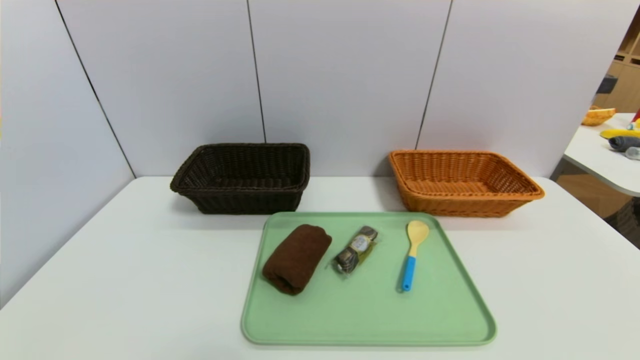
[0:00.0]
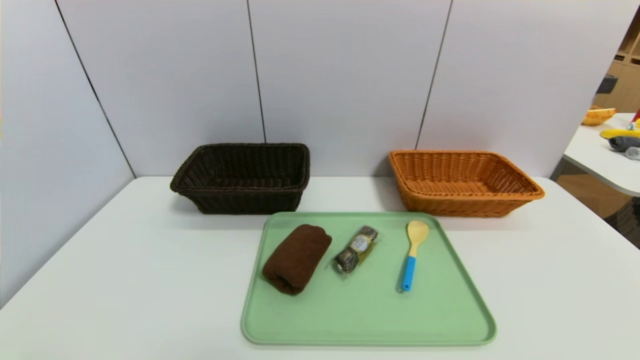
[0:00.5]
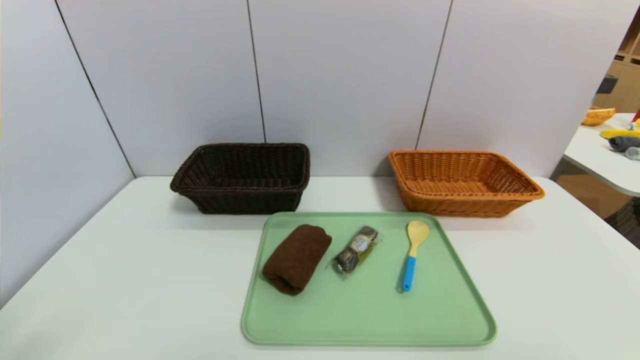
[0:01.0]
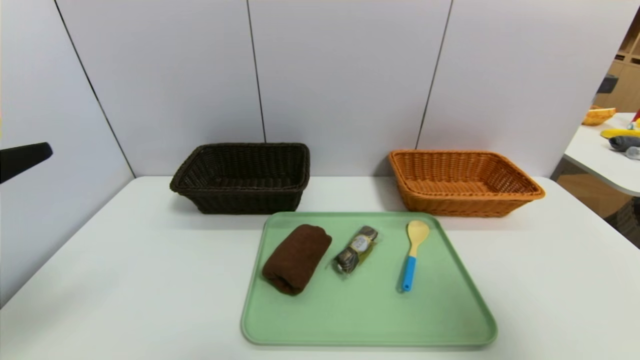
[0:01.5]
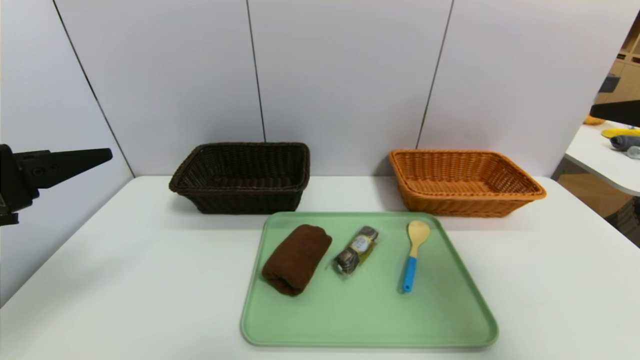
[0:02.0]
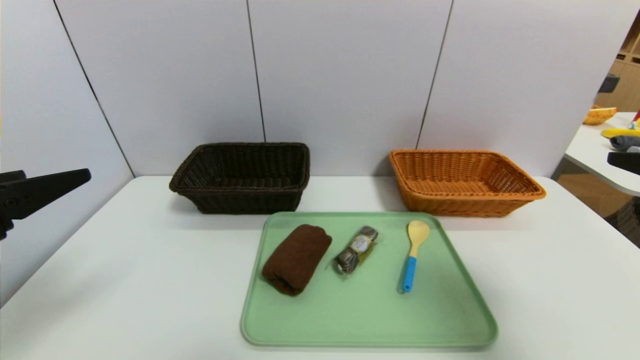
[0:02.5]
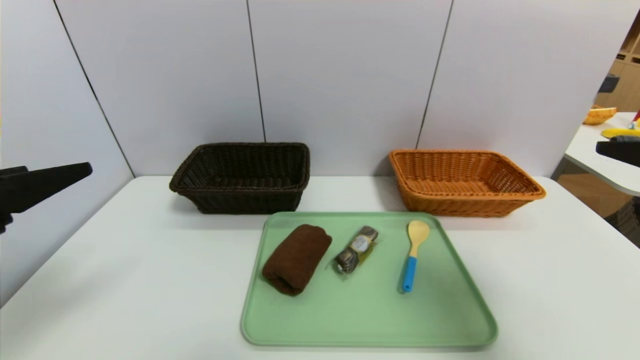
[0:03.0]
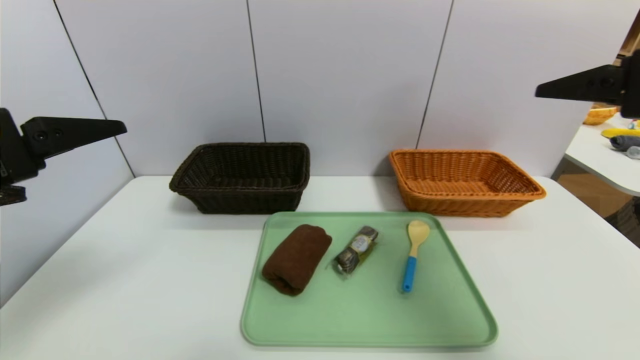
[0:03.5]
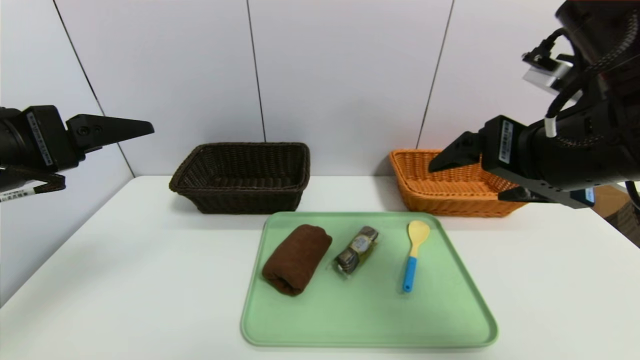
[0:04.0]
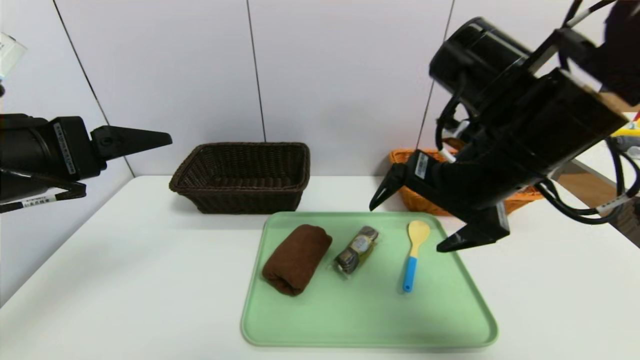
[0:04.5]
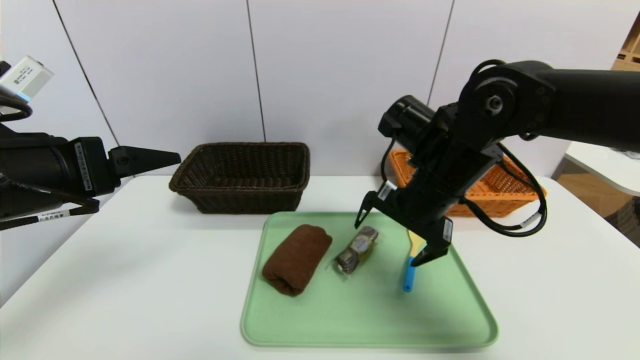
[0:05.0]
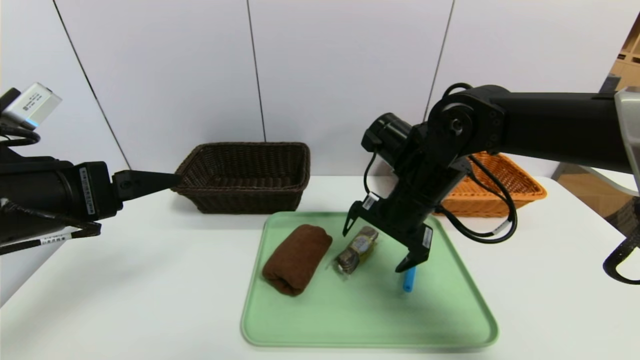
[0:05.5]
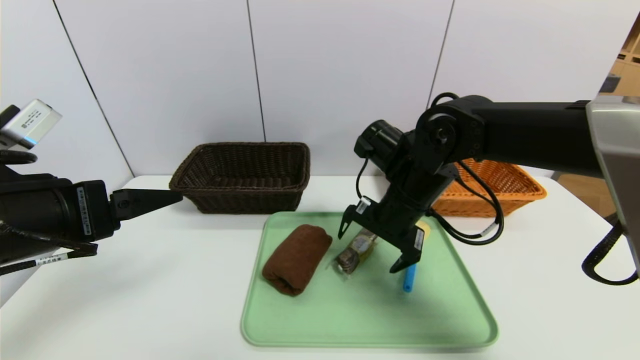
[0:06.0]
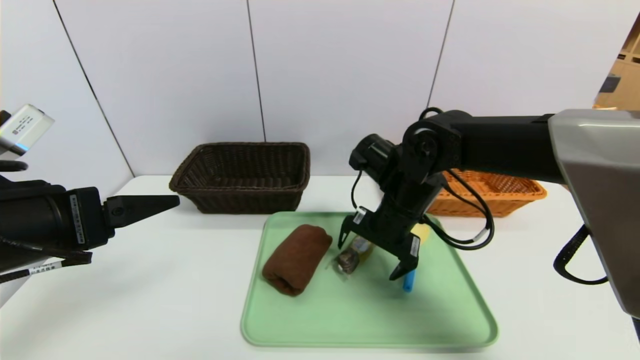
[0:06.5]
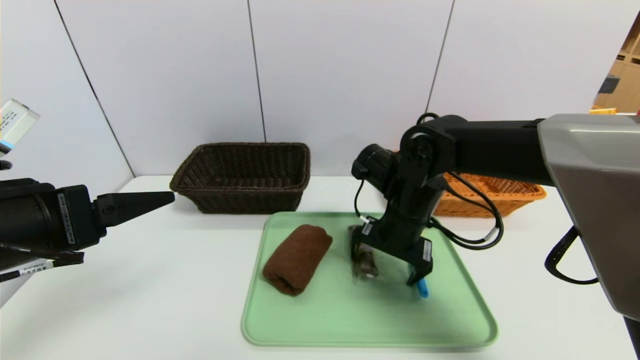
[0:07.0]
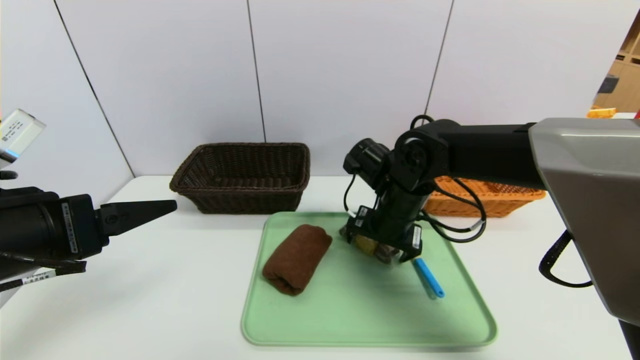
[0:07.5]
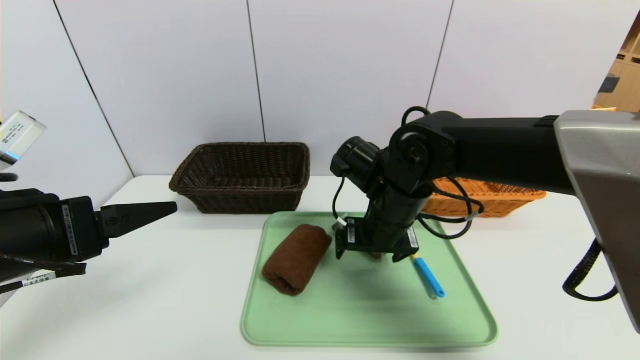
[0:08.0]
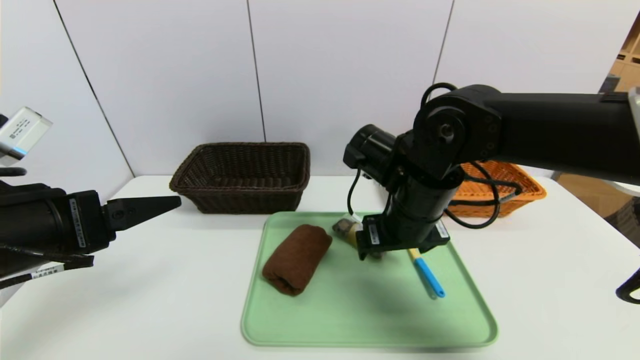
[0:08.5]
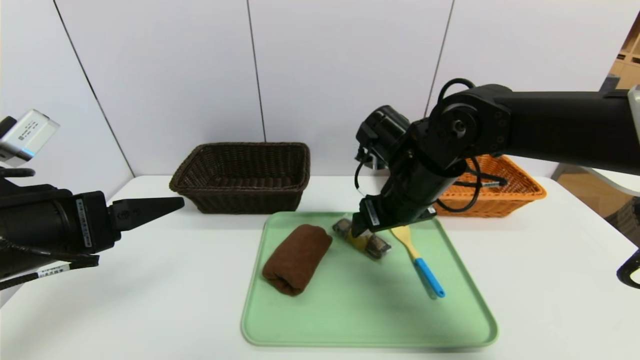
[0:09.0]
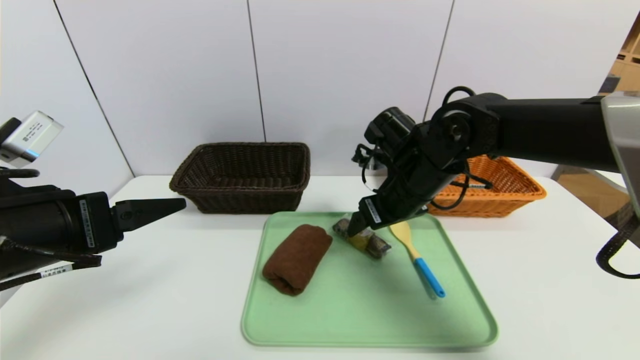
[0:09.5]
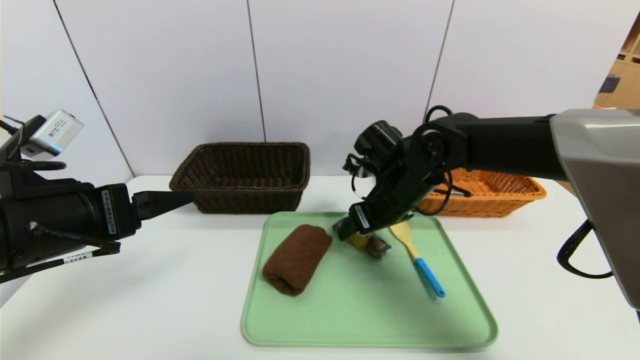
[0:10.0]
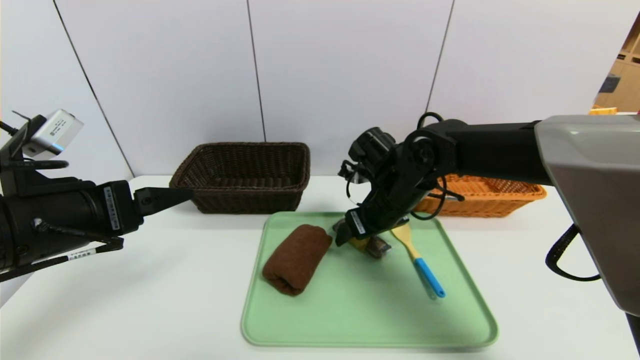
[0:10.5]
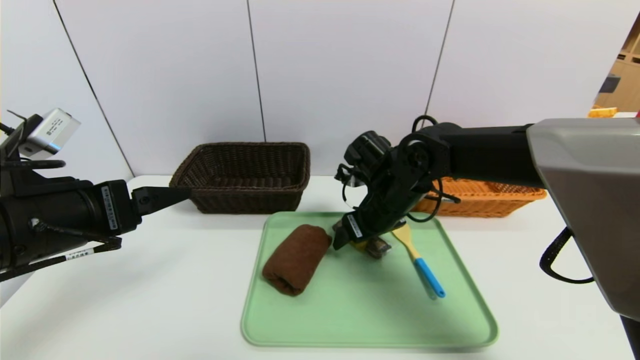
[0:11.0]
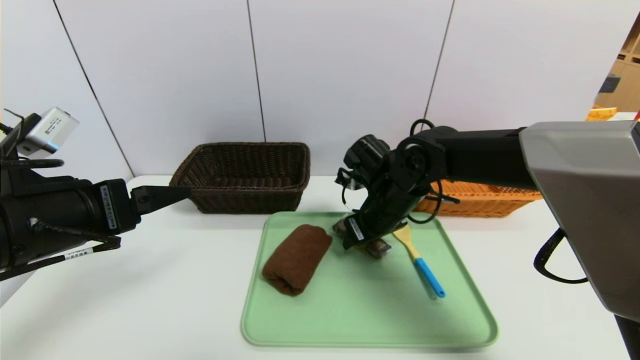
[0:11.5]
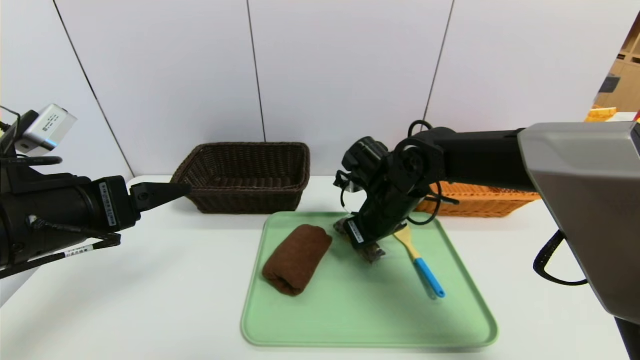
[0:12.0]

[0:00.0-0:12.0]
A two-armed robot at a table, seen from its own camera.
Task of the whole recording: place the food in the right basket with the right gripper, and place the non food items in the left basket with the left gripper.
0:00.0 to 0:02.0: The right gripper goes approximately 30 cm upward and forward. Meanwhile the left gripper shifts some 25 cm forward and upward.
0:02.0 to 0:04.0: The right gripper travels to the left and forward by about 15 cm.
0:04.0 to 0:06.0: The left gripper shifts by about 5 cm. The right gripper goes approximately 20 cm downward, forward and to the left.
0:08.0 to 0:10.0: The right gripper heads forward, covering roughly 5 cm.
0:10.0 to 0:12.0: The right gripper closes its fingers.

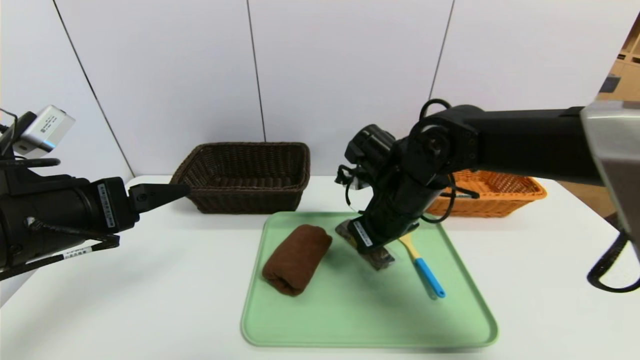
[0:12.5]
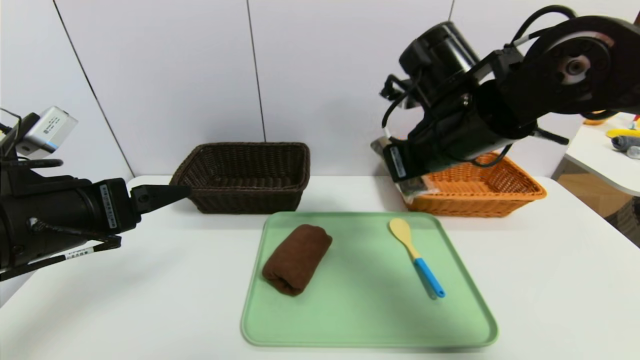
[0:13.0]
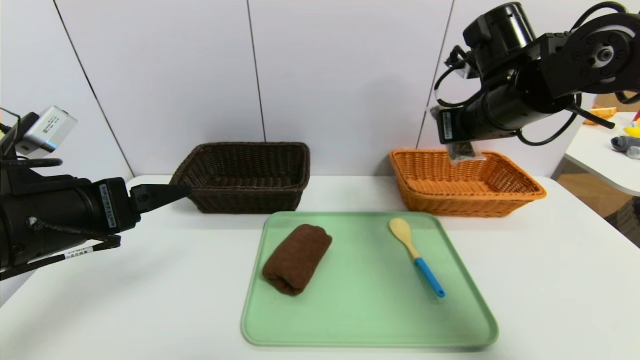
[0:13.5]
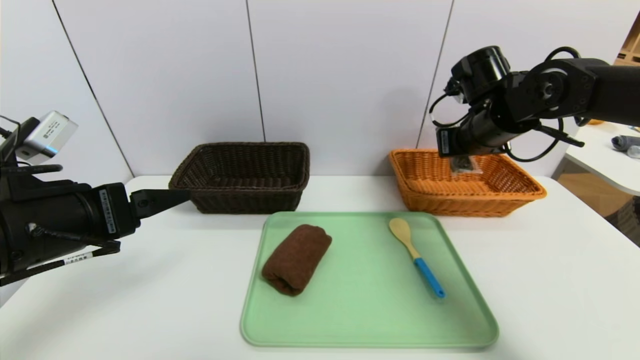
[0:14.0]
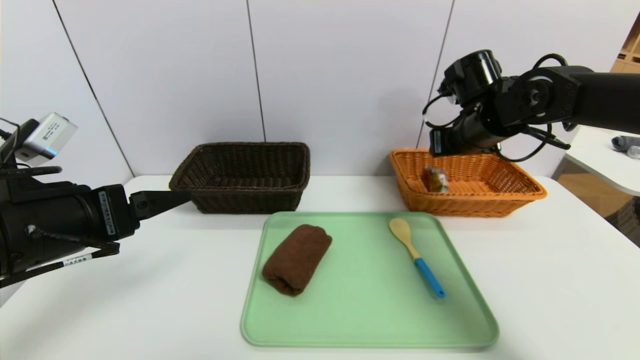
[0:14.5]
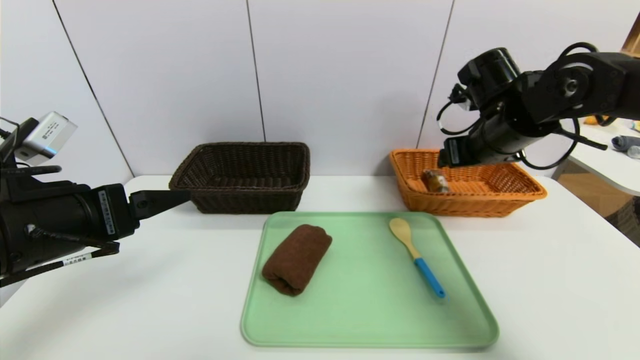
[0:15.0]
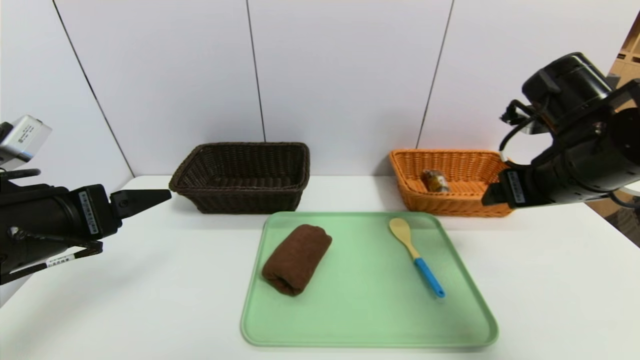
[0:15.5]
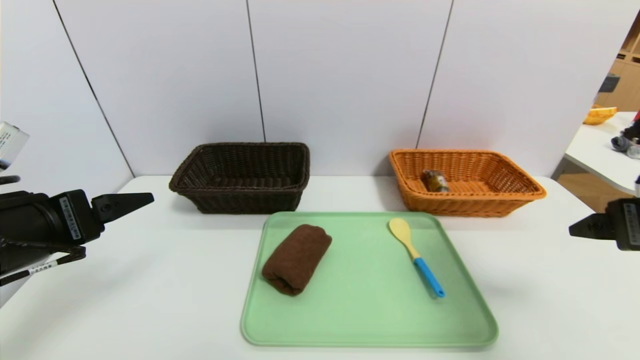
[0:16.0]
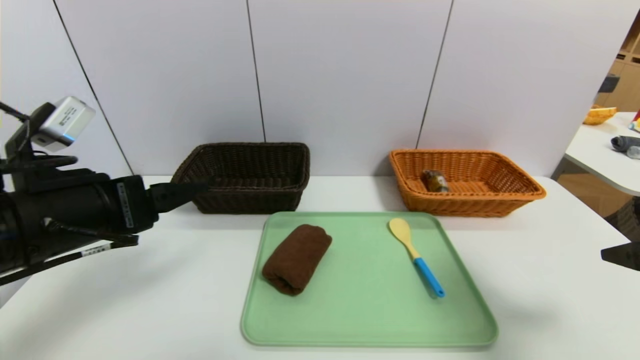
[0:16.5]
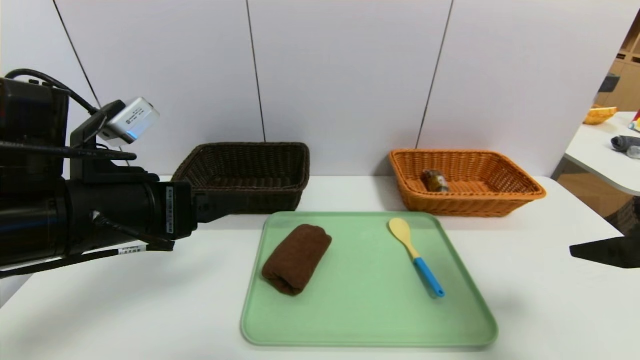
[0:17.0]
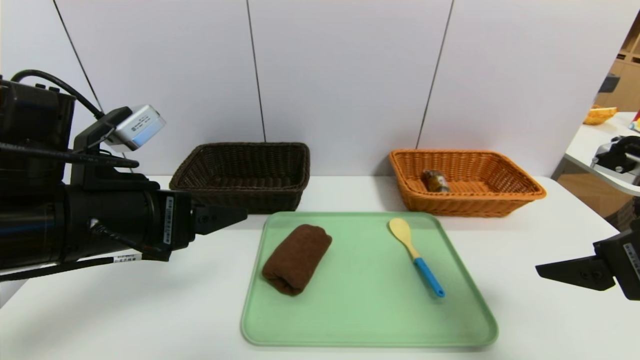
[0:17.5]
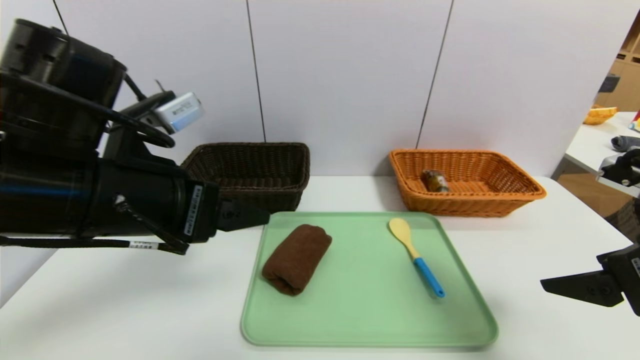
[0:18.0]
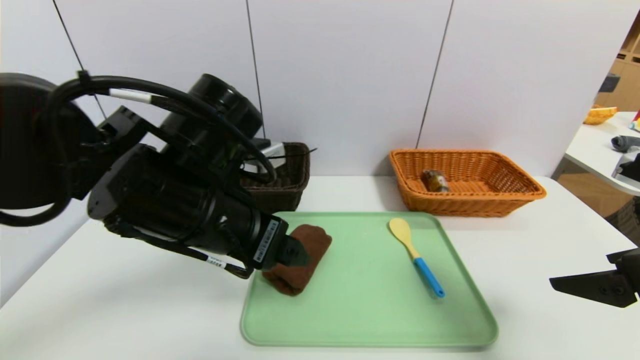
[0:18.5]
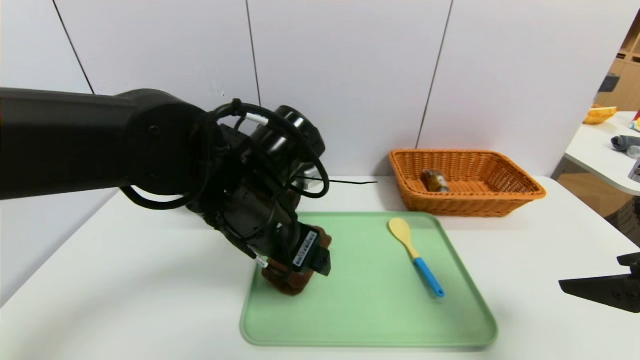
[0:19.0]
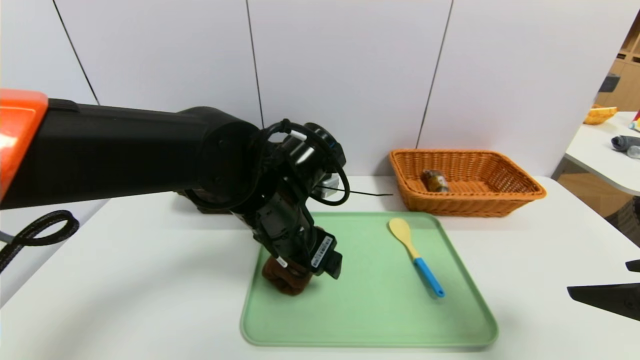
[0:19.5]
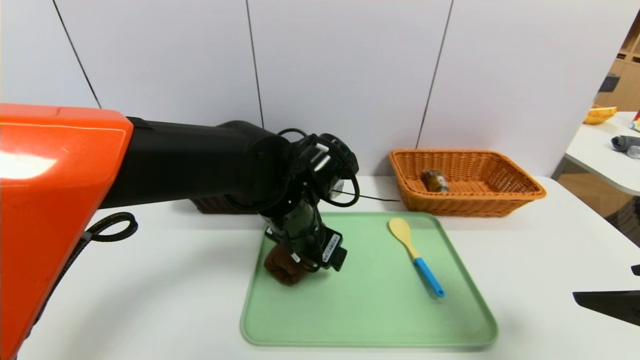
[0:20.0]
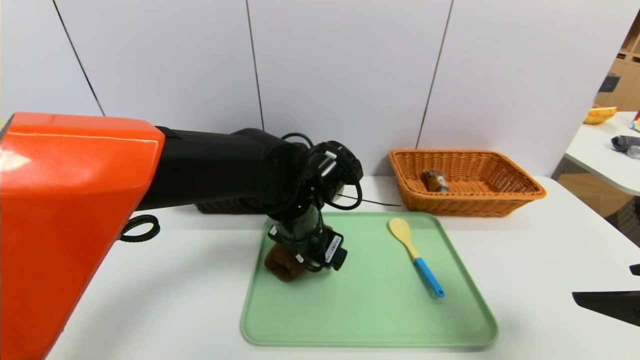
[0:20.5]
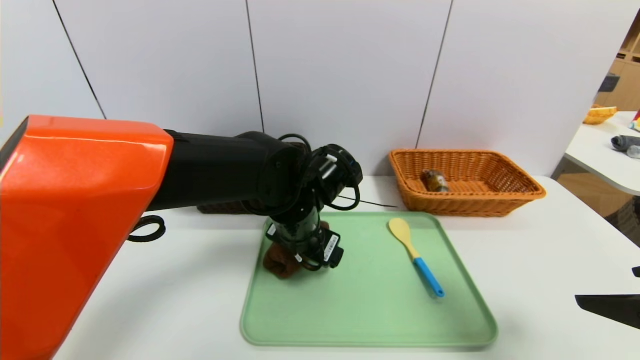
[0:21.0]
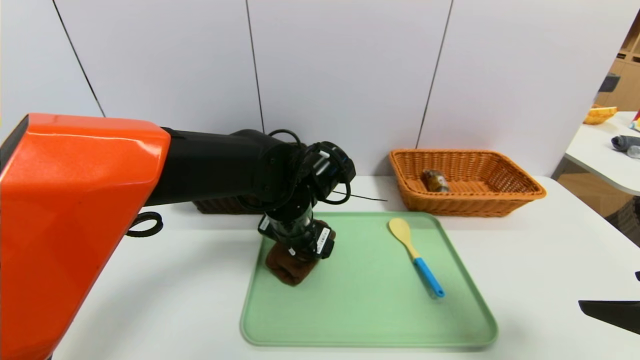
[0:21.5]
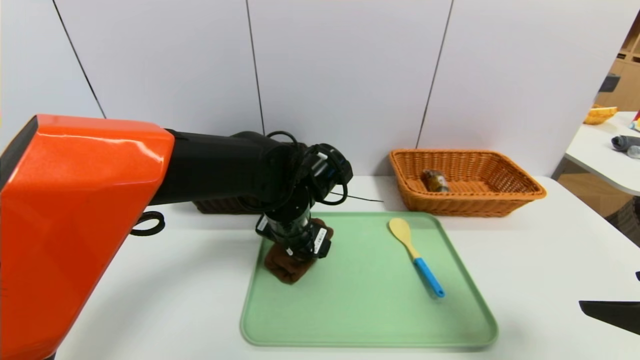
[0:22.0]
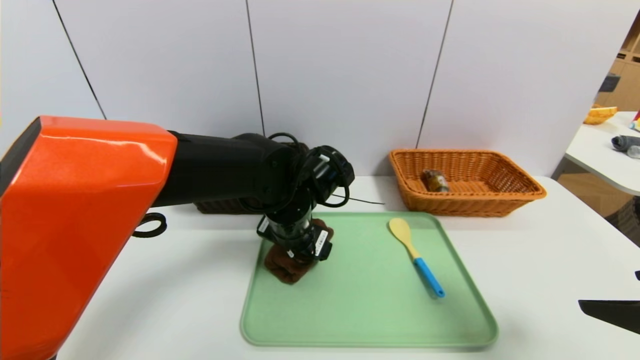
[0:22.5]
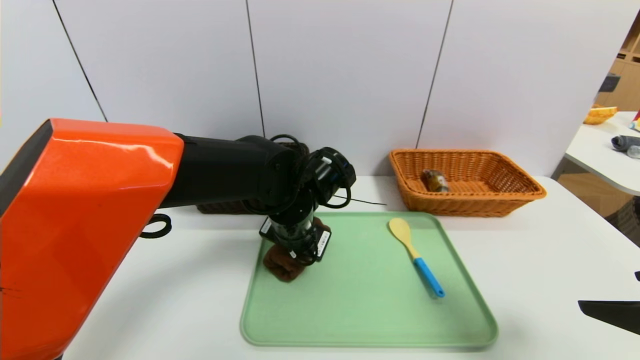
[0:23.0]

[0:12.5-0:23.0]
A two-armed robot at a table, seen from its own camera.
Task of the whole recording: place the food in the right basket with the right gripper, and place the non food items in the left basket with the left gripper.
Step, 0:12.5 to 0:14.5: Grasp the chocolate and put it in the right basket.
0:12.5 to 0:14.5: The right gripper shifts about 15 cm to the right, forward and upward, and opens its fingers.
0:14.5 to 0:16.5: The right gripper heads backward, covering about 25 cm, and opens its fingers.
0:16.5 to 0:19.0: The left gripper travels to the right and forward by some 15 cm.
0:19.0 to 0:21.0: The left gripper is displaced downward and forward by some 10 cm.
0:21.0 to 0:23.0: The left gripper closes.
